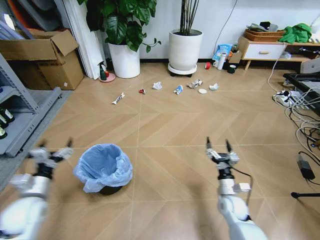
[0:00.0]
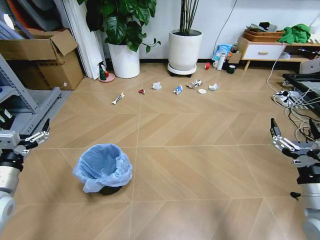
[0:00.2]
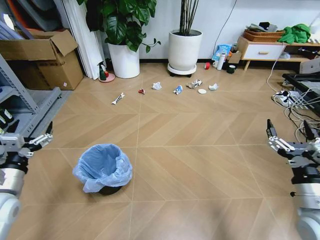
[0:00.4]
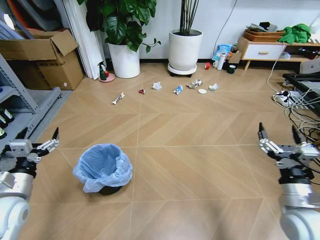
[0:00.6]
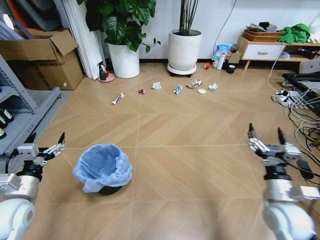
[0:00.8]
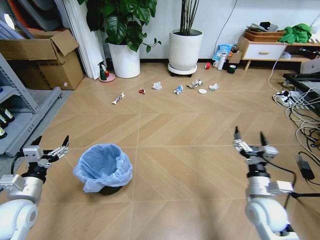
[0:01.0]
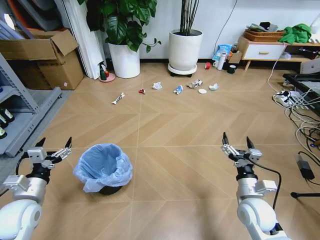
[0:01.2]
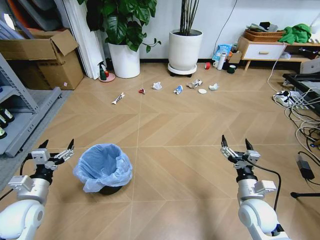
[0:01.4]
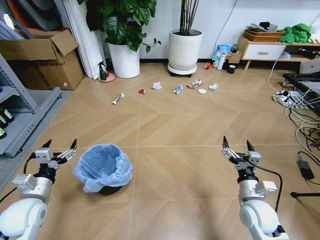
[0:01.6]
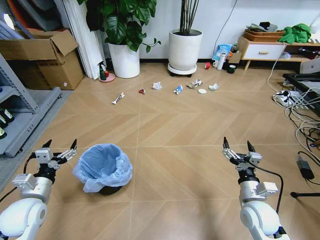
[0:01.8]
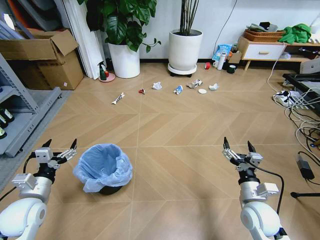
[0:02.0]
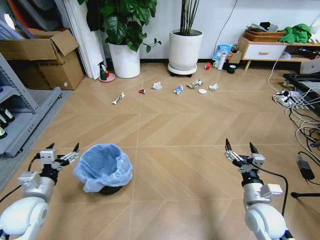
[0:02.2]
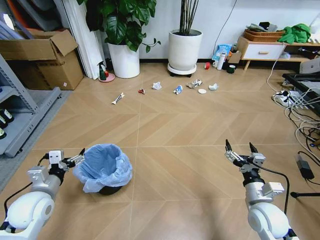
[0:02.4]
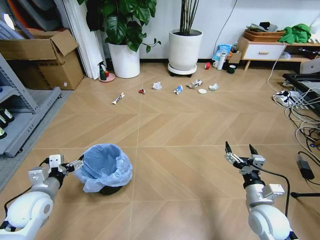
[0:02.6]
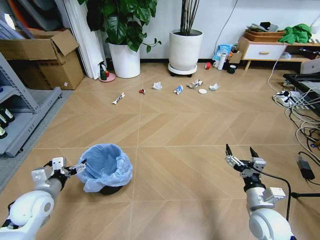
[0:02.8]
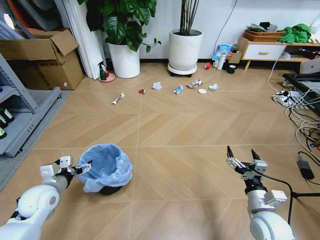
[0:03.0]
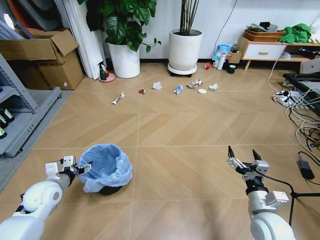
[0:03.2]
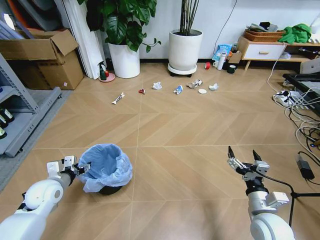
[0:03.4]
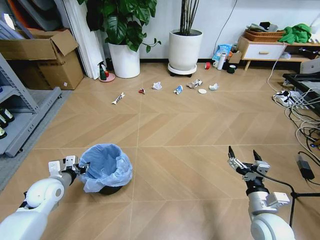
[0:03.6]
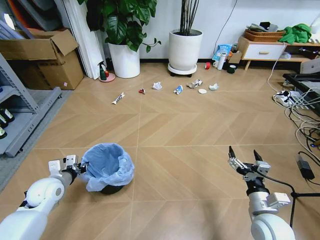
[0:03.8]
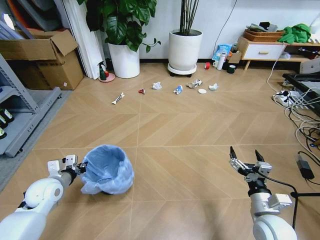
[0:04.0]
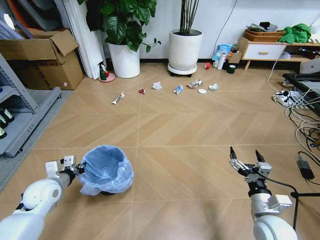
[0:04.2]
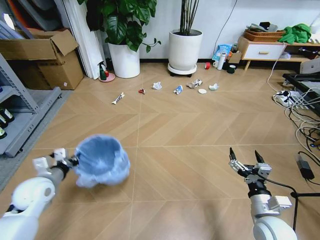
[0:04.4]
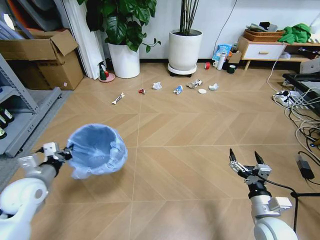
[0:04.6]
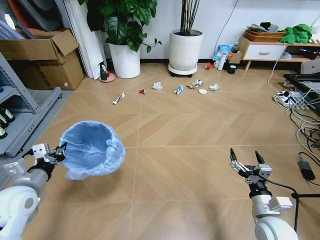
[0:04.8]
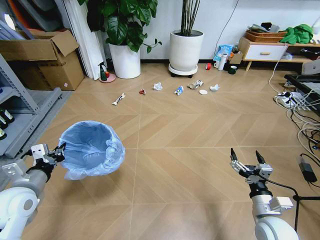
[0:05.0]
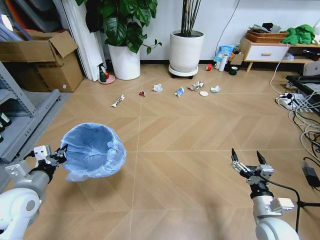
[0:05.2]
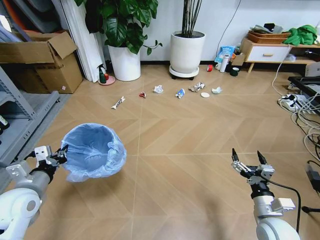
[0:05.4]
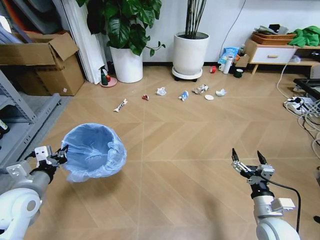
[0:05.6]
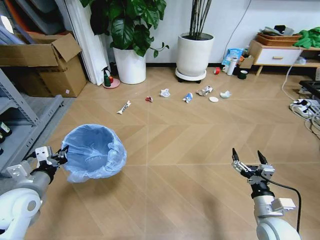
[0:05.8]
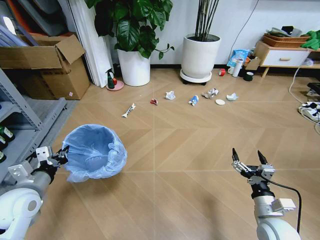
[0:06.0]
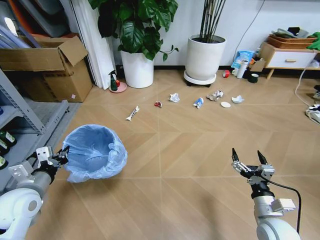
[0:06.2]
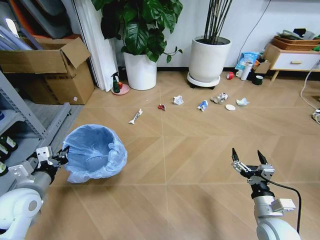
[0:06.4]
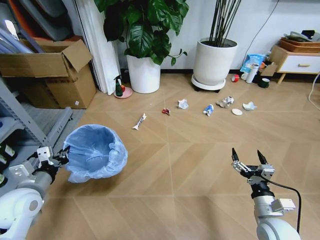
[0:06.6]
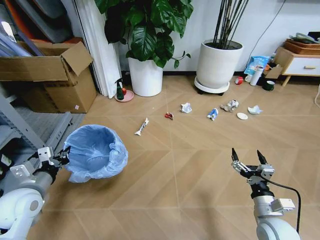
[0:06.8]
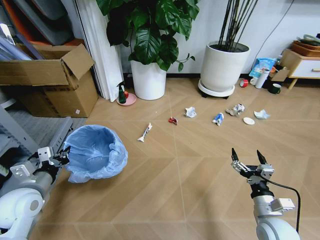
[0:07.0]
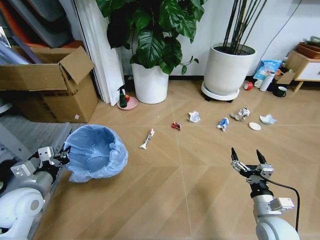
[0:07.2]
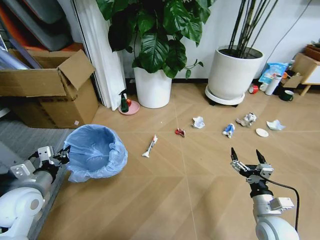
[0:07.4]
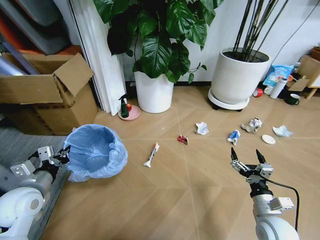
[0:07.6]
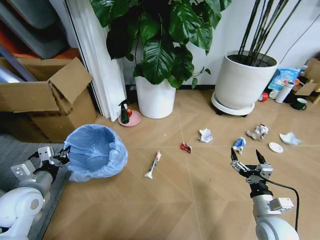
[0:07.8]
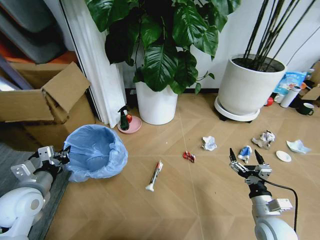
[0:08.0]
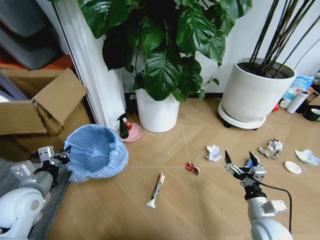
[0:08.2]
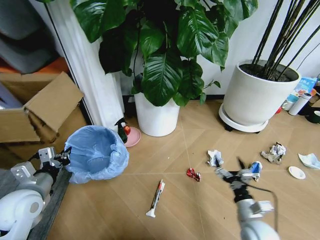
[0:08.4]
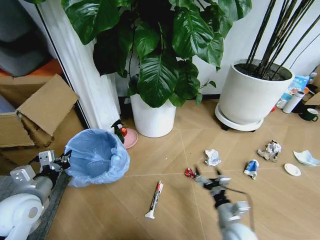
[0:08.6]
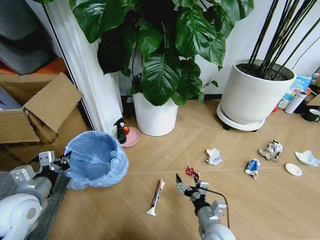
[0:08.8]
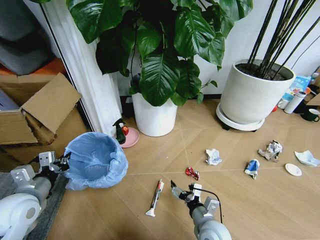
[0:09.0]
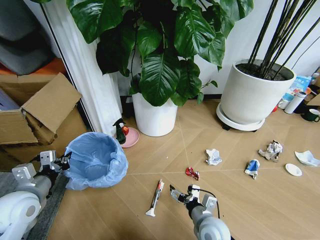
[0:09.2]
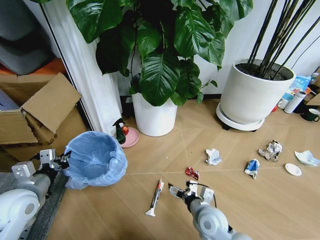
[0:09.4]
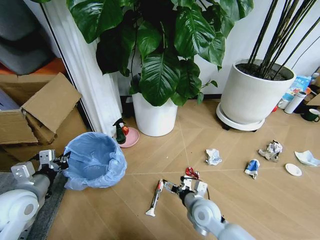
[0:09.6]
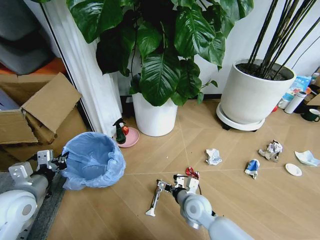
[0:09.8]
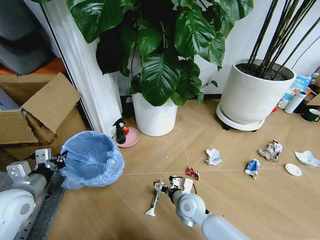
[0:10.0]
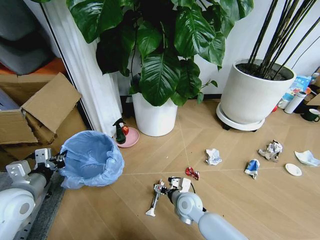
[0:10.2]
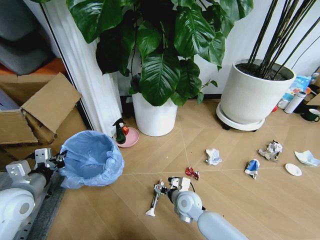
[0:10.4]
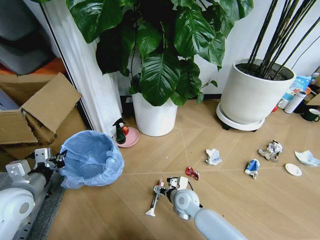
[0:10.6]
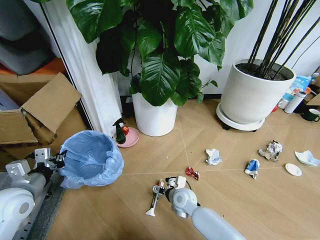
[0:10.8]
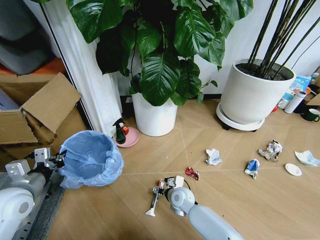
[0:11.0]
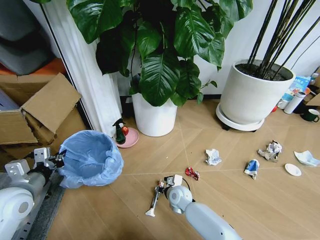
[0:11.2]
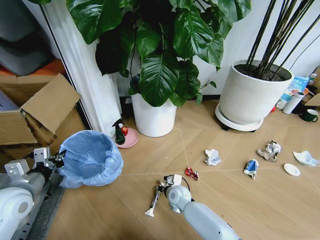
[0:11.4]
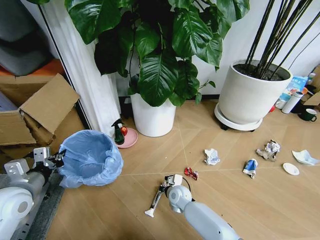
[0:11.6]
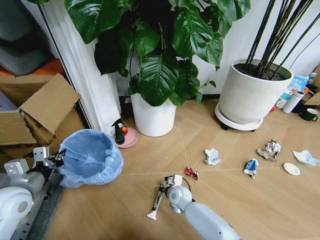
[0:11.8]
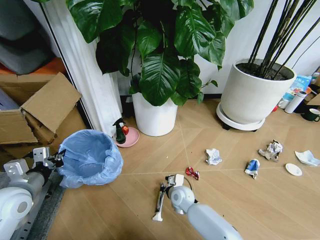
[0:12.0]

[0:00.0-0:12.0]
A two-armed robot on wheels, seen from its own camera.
Task of the whole recording: Pick up the trash bin and place the garbage on the floor into it.
0:03.0 to 0:04.4: The left gripper closes its fingers.
0:04.4 to 0:06.0: The left gripper is displaced backward by some 5 cm.
0:07.6 to 0:09.0: The right gripper is displaced to the left by approximately 15 cm.
0:09.0 to 0:10.4: The right gripper goes roughly 15 cm forward and to the left.
0:10.4 to 0:12.0: The right gripper ends up about 5 cm from where it was, and closes its fingers.

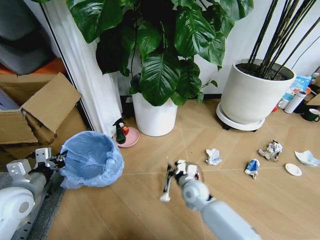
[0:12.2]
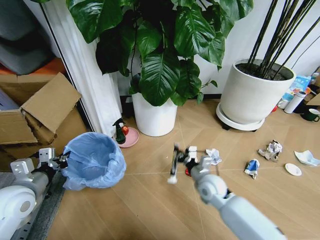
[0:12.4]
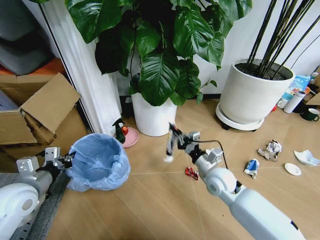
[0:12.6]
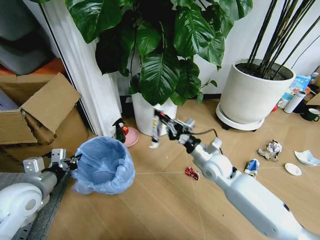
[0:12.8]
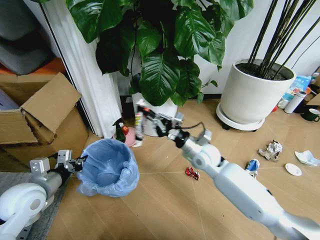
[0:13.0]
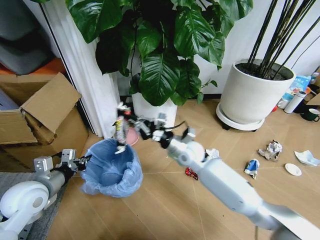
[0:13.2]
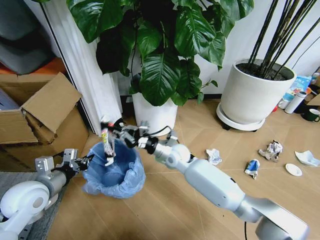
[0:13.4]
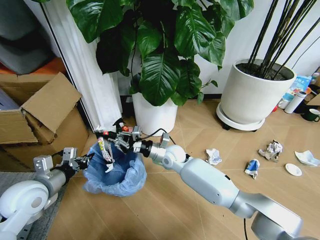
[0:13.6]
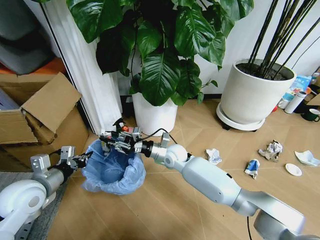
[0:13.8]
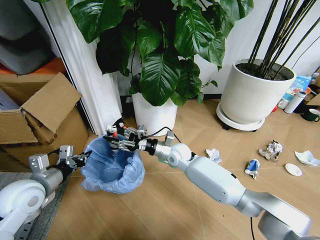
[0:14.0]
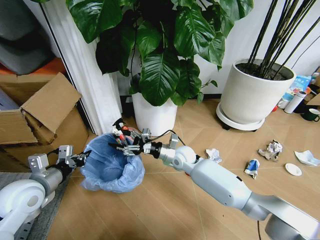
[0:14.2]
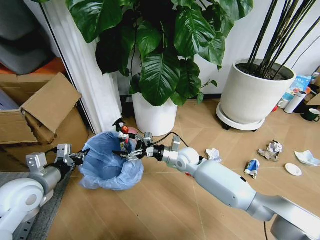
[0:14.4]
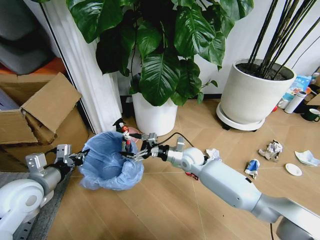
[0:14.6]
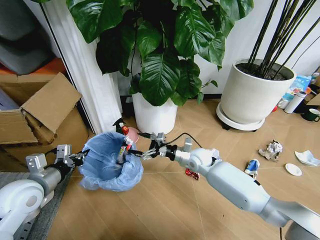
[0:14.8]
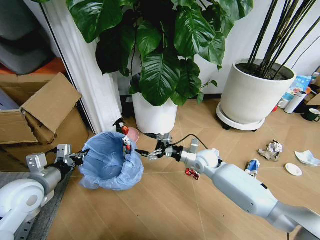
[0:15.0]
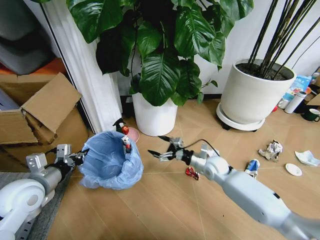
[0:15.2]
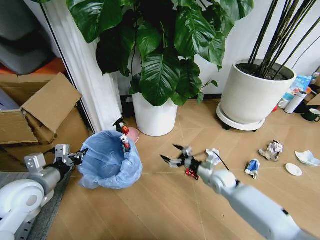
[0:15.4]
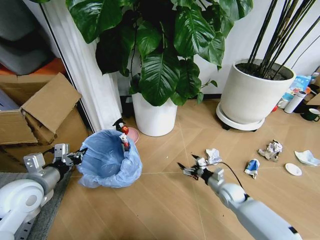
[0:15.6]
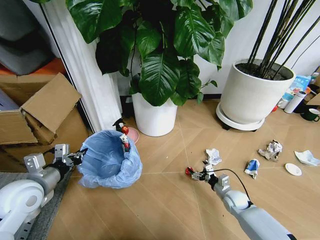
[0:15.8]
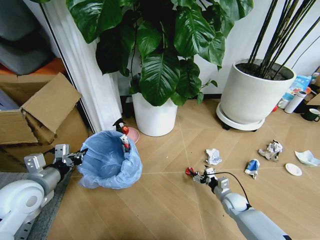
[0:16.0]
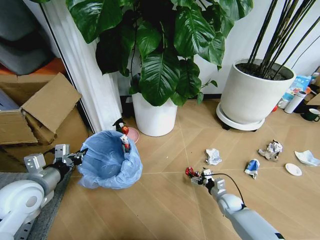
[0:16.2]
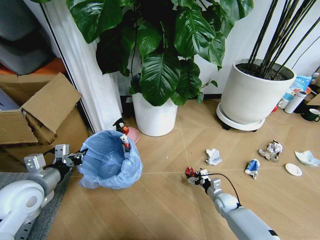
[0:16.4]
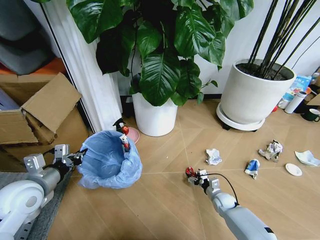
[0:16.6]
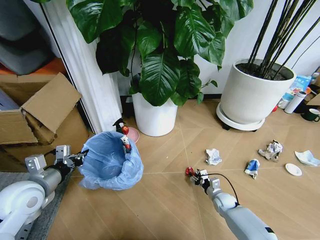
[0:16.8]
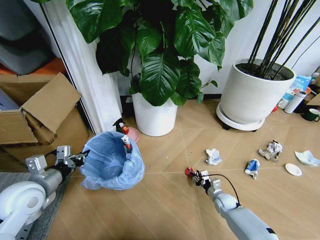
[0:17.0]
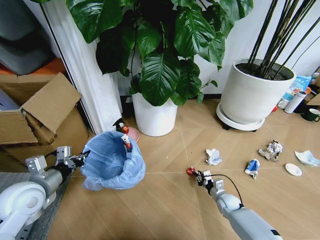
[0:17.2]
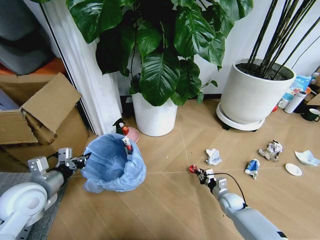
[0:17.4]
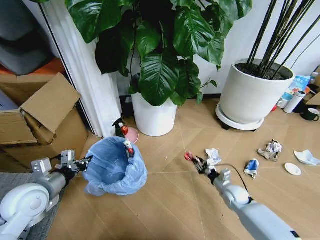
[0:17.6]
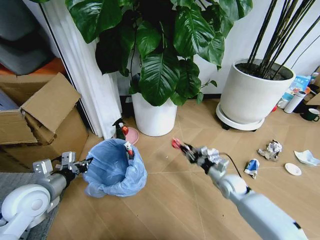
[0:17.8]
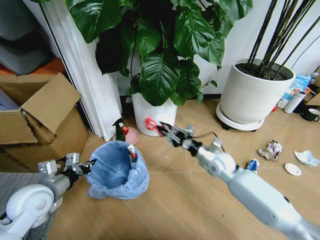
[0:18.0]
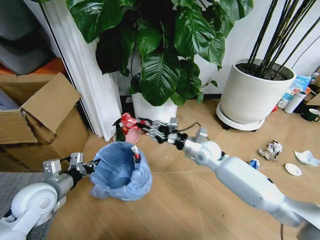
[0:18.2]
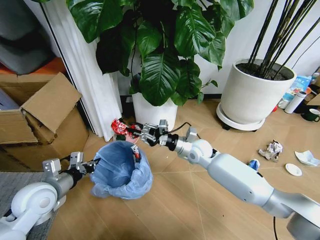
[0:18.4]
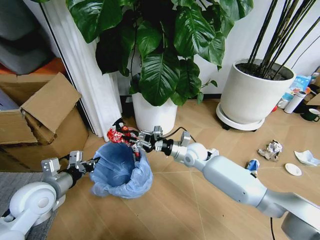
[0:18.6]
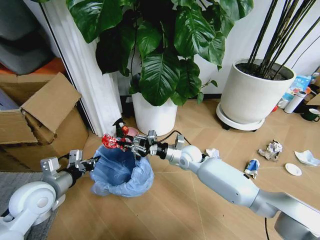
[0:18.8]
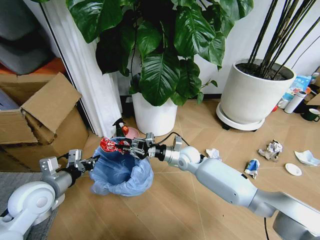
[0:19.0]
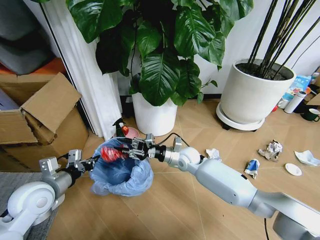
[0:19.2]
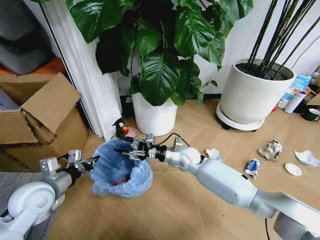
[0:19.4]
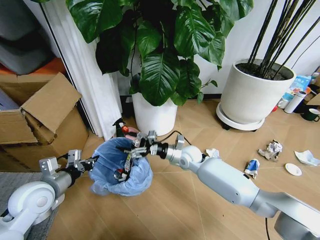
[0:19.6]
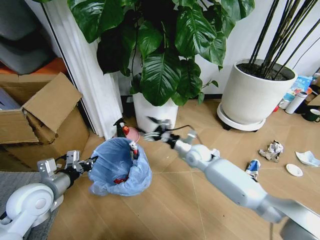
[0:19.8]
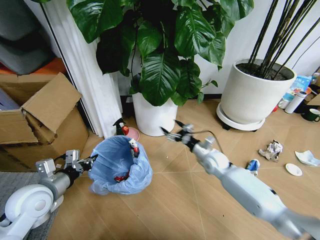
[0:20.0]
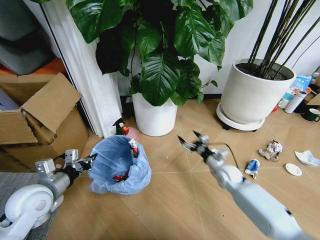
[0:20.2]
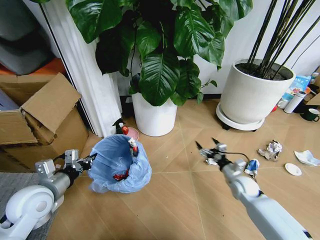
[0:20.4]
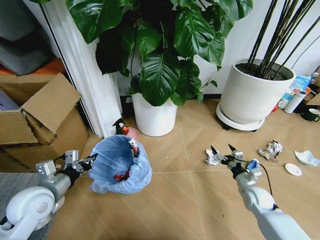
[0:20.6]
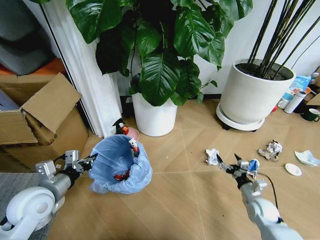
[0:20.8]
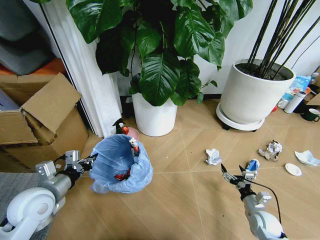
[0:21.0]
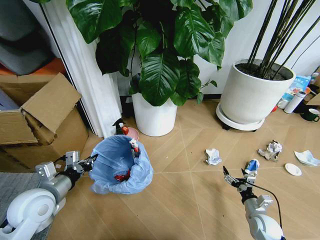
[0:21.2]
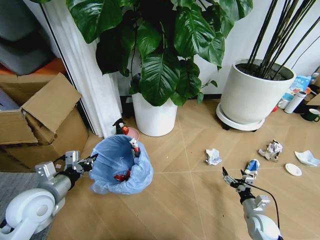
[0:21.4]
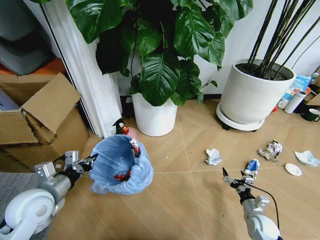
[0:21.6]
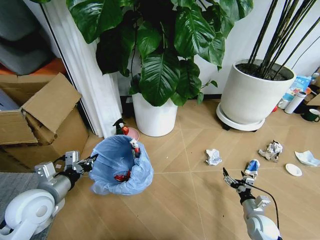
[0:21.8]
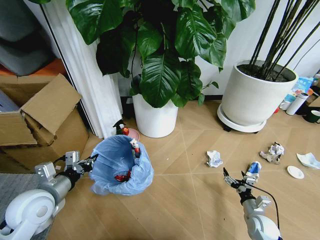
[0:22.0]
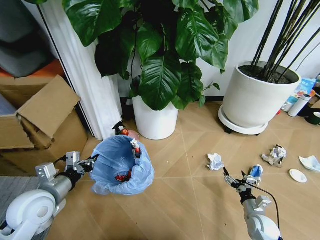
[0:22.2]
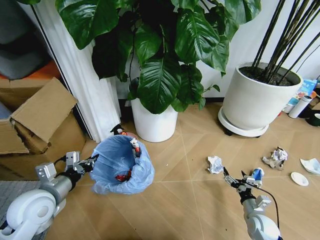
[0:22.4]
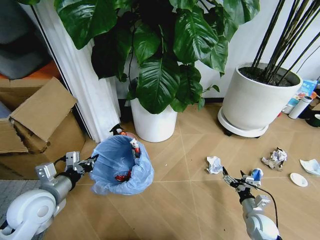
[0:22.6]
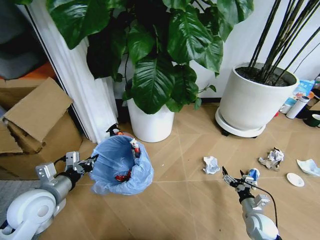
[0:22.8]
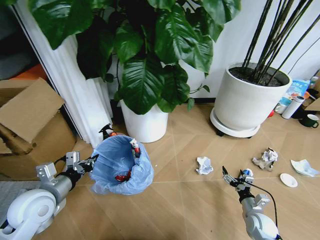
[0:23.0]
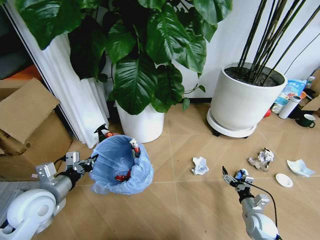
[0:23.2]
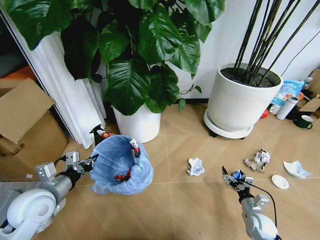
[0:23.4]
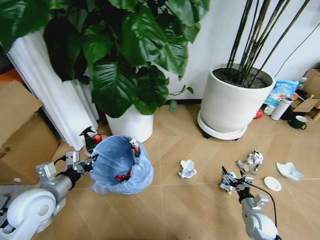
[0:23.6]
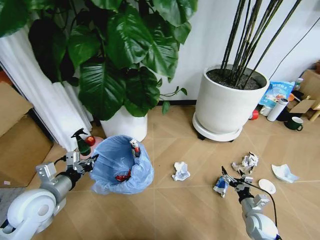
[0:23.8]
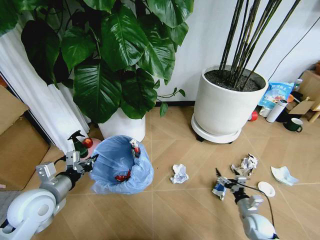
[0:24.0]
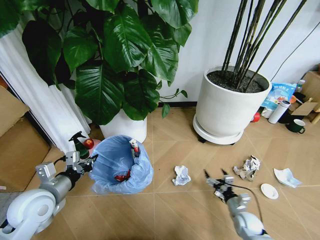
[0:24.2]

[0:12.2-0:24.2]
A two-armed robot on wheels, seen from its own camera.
Task of the whole recording: Pick up the trash bin and place the garbage on the floor into it.
0:12.2 to 0:13.8: The right gripper heads forward, upward and to the left, covering approximately 15 cm.
0:13.8 to 0:15.2: The right gripper is displaced to the right by about 15 cm, and opens its fingers.
0:15.2 to 0:16.6: The right gripper travels downward and backward by approximately 20 cm.
0:16.6 to 0:18.2: The right gripper shifts some 30 cm upward and to the left, and closes.
0:18.2 to 0:19.8: The right gripper shifts by roughly 5 cm, and opens its fingers.
0:19.8 to 0:21.2: The right gripper goes about 35 cm to the right, backward and downward.
0:22.6 to 0:24.2: The right gripper moves roughly 5 cm.
